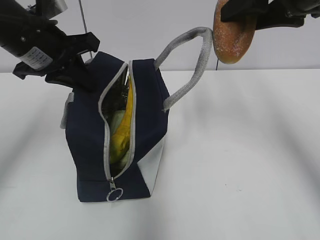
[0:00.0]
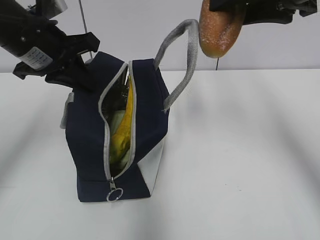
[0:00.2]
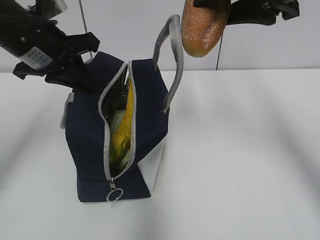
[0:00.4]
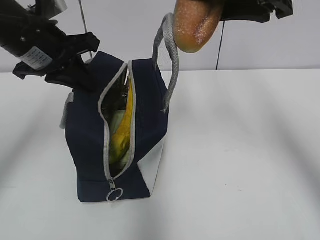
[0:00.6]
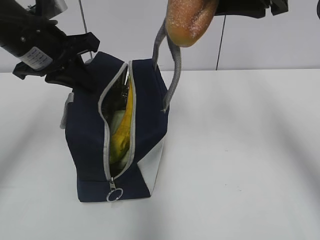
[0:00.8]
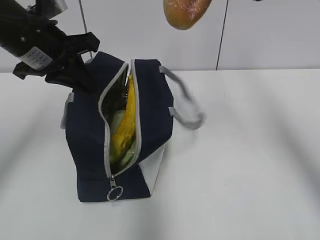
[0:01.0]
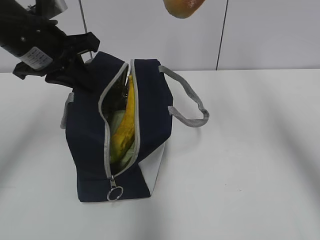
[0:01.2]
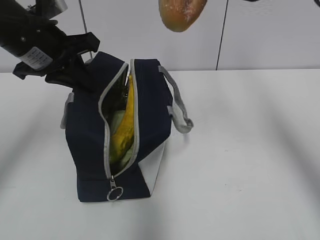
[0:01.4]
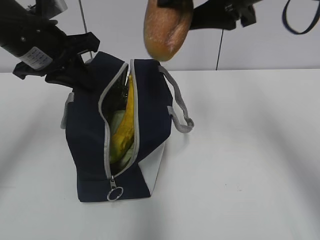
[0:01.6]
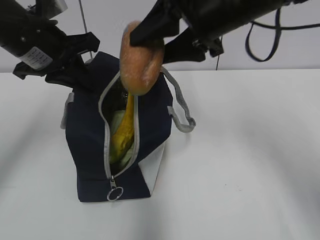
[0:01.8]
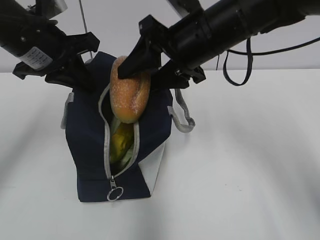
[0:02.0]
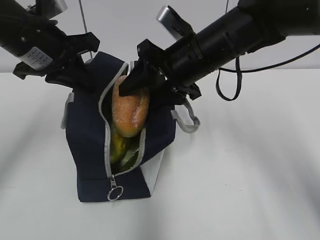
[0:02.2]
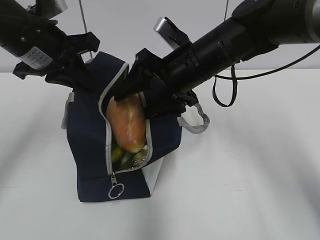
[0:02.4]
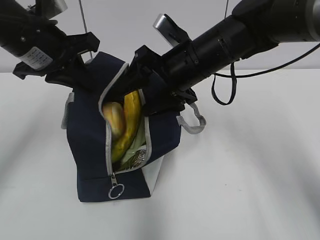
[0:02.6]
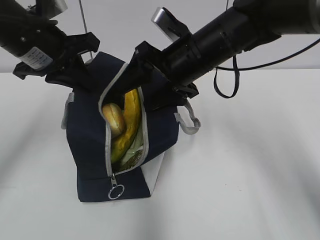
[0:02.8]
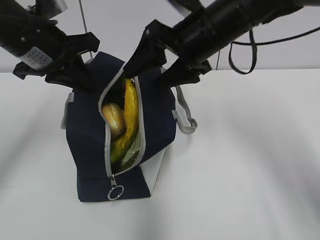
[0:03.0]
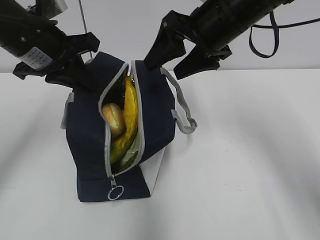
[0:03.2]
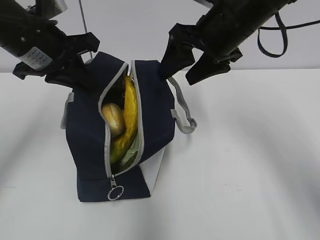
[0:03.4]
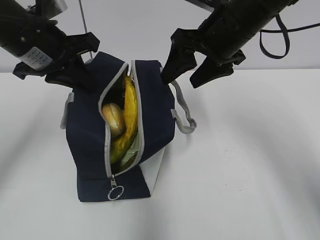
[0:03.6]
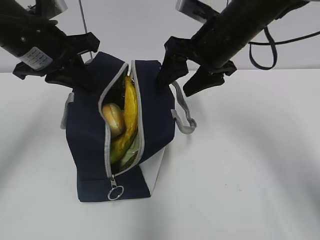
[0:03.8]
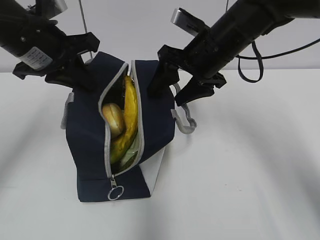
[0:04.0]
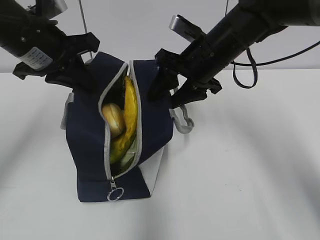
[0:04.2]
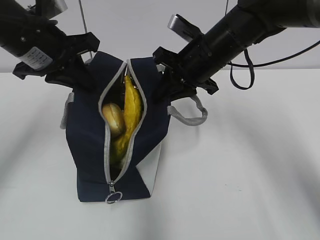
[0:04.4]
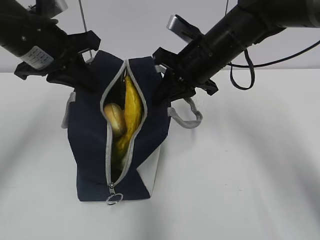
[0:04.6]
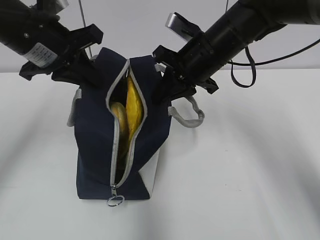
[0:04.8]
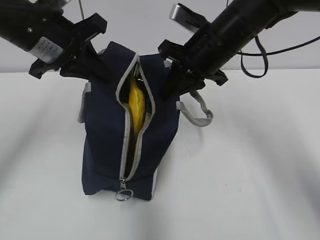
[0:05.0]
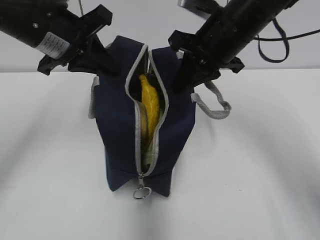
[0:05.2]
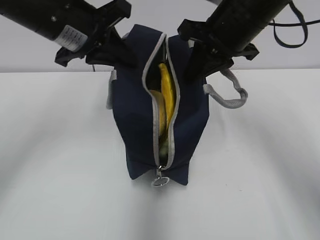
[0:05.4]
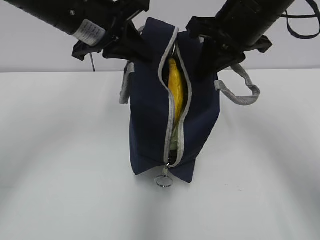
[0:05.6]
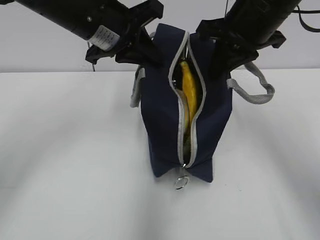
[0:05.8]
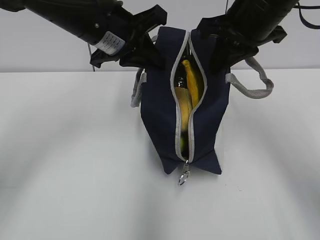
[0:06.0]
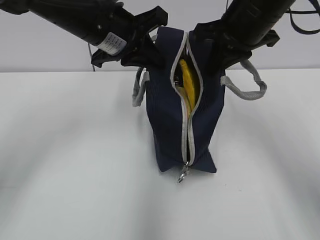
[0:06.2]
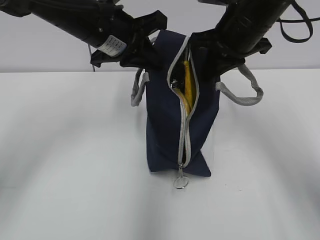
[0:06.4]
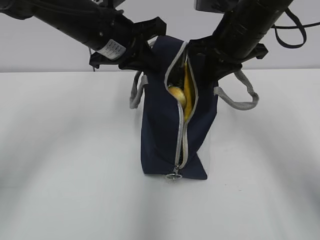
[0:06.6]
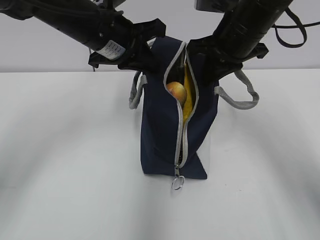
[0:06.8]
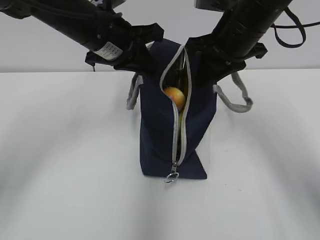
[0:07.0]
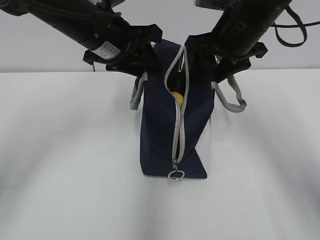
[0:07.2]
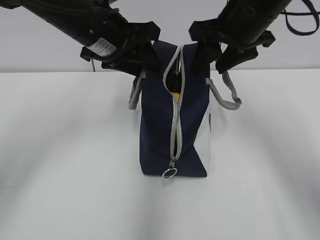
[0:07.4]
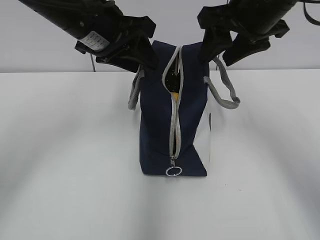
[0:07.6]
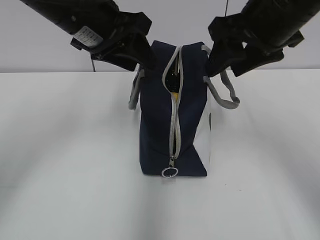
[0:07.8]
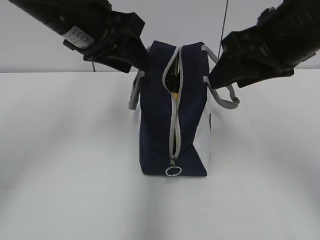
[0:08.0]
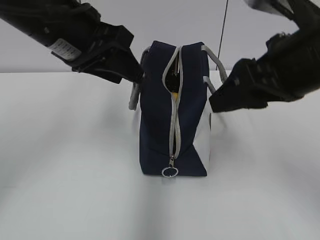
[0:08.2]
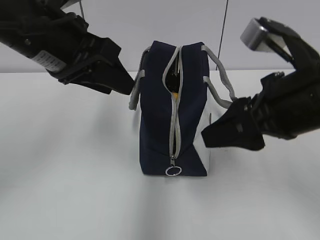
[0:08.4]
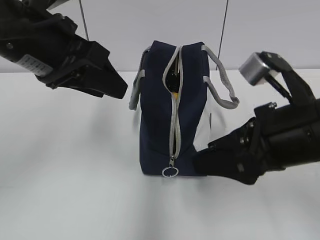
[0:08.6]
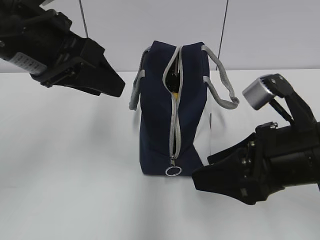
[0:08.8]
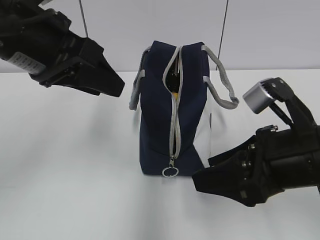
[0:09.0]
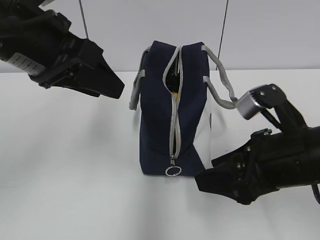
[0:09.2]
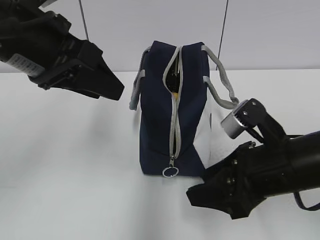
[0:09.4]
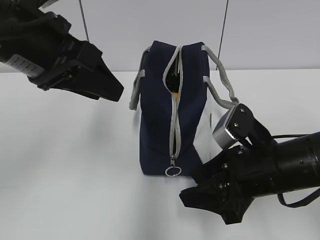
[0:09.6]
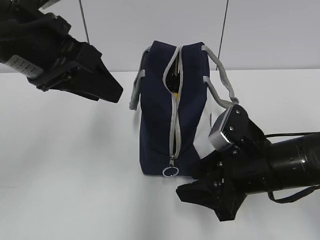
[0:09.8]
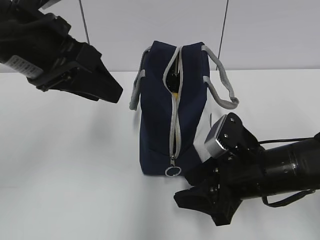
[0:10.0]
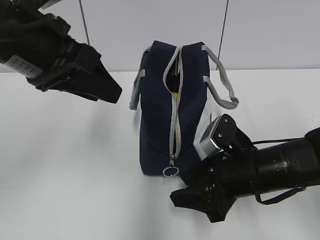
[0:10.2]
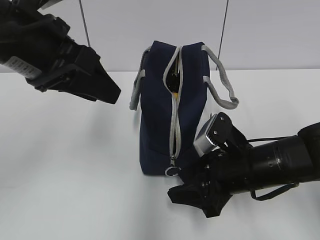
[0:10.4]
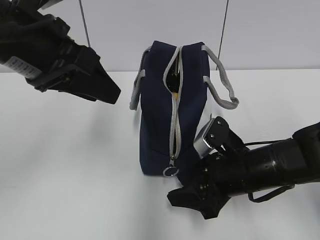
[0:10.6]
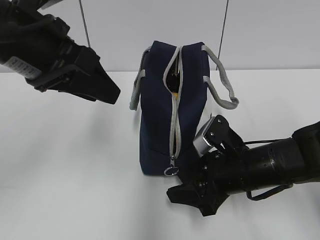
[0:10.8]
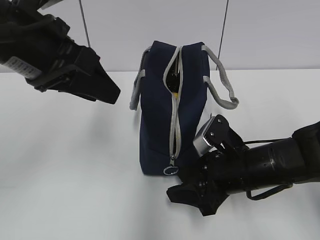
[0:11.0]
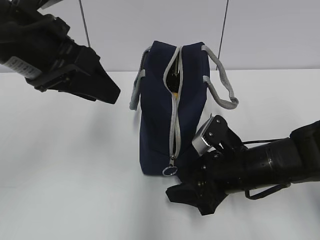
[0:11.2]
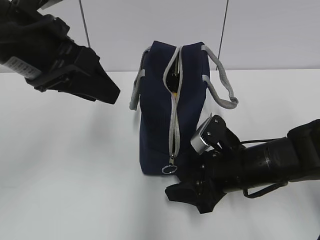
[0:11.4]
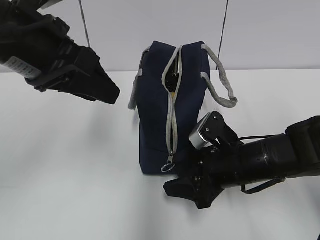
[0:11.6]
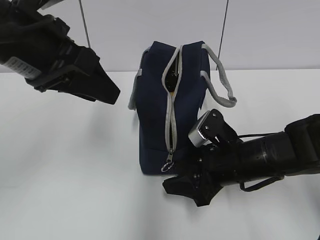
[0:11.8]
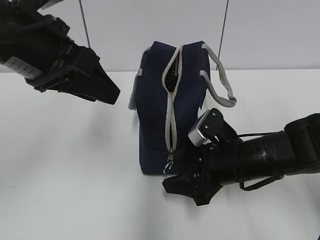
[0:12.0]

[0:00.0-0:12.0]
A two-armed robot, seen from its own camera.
Step, 0:02.8 to 0:04.8: Grab the lunch bag with your right hand.
Step, 0:05.0 to 0:07.4: Move the lunch bag to the right.
0:00.0 to 0:01.6: The right gripper heads to the left, covering approximately 5 cm.
0:01.6 to 0:03.0: The right gripper is displaced downward and to the left by roughly 10 cm.
0:03.0 to 0:04.4: The right gripper ends up roughly 5 cm from where it was, and closes its fingers.
0:04.4 to 0:06.0: The right gripper heads upward and to the right, covering approximately 10 cm, while the left gripper heads to the right, covering about 10 cm.
0:06.0 to 0:07.6: The right gripper opens, while the left gripper opens up.
0:07.6 to 0:09.0: The left gripper moves backward, approximately 10 cm, while the right gripper travels backward and downward by roughly 20 cm.
0:09.0 to 0:10.4: The right gripper shifts about 10 cm downward and forward.
0:10.4 to 0:12.0: The grippers move only a little.

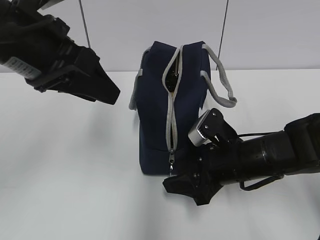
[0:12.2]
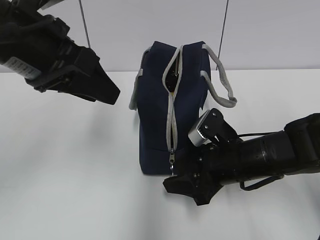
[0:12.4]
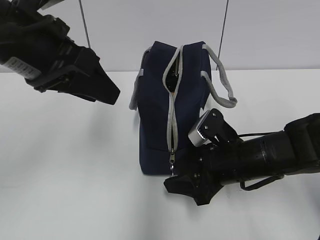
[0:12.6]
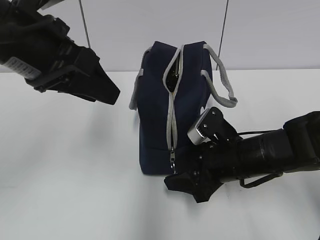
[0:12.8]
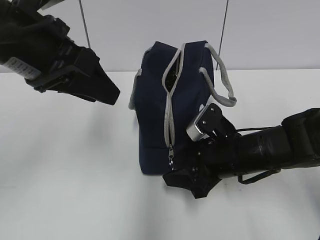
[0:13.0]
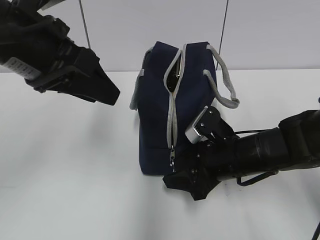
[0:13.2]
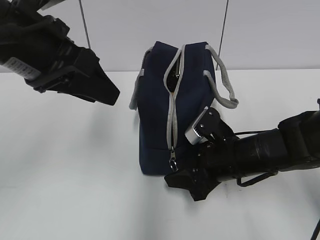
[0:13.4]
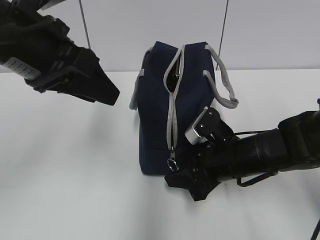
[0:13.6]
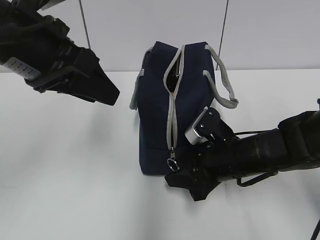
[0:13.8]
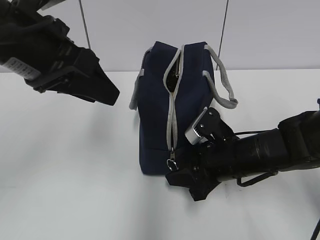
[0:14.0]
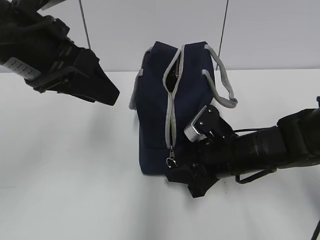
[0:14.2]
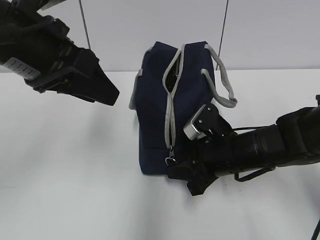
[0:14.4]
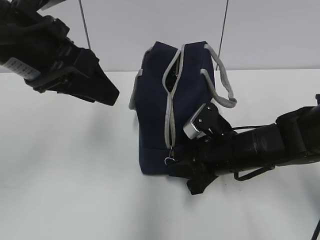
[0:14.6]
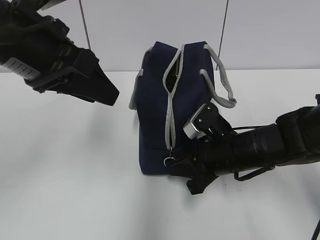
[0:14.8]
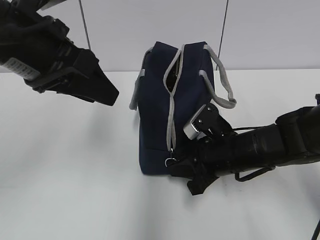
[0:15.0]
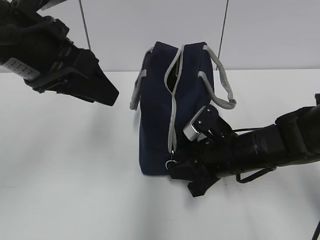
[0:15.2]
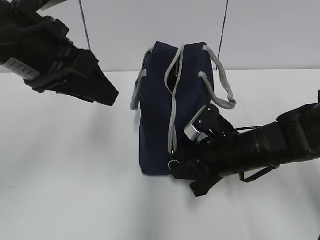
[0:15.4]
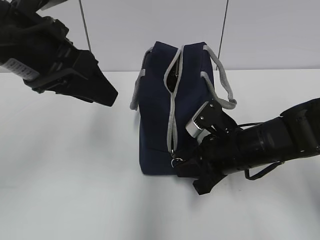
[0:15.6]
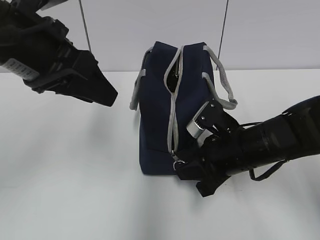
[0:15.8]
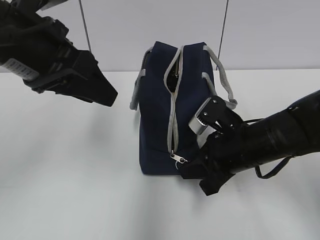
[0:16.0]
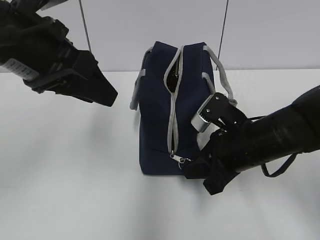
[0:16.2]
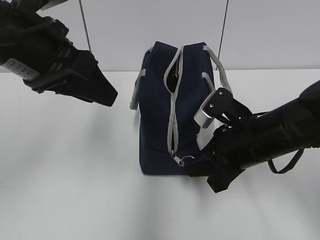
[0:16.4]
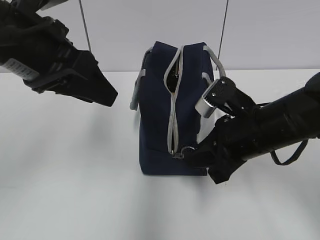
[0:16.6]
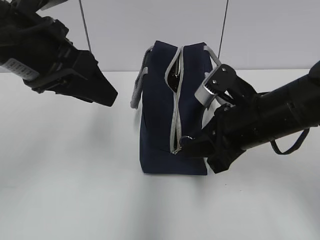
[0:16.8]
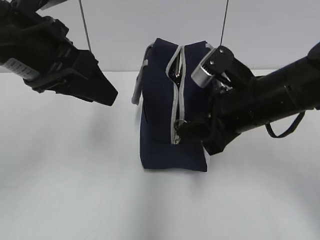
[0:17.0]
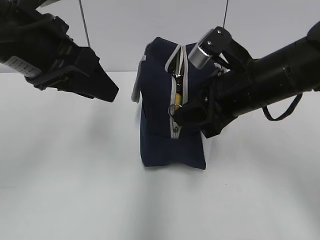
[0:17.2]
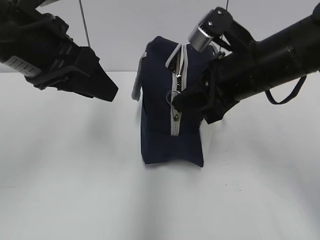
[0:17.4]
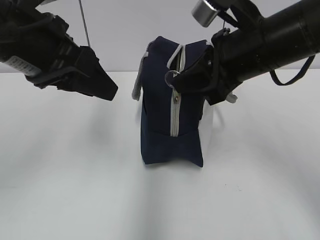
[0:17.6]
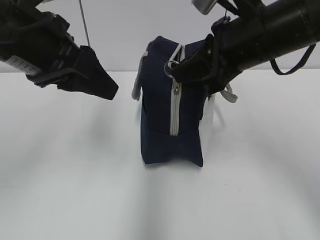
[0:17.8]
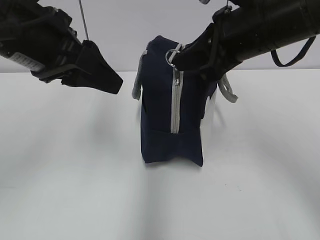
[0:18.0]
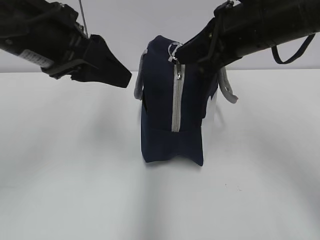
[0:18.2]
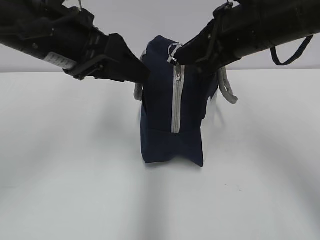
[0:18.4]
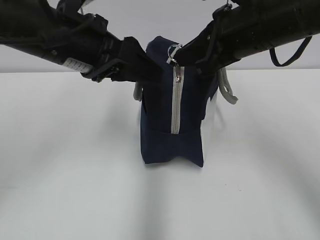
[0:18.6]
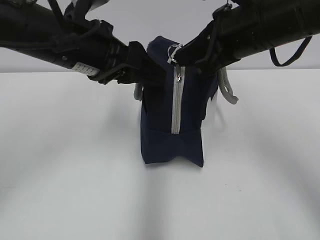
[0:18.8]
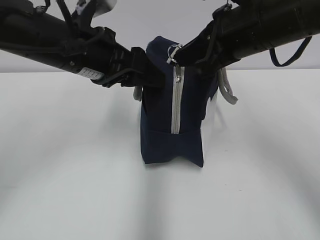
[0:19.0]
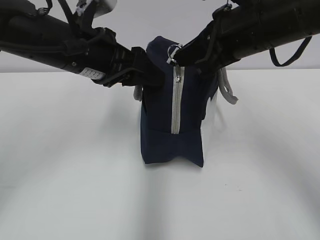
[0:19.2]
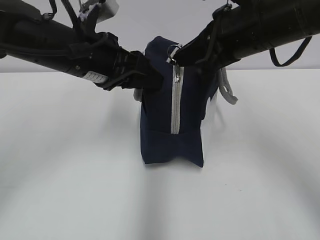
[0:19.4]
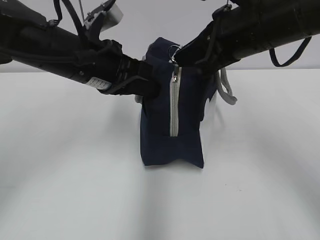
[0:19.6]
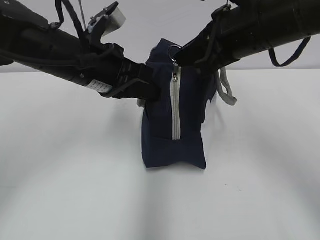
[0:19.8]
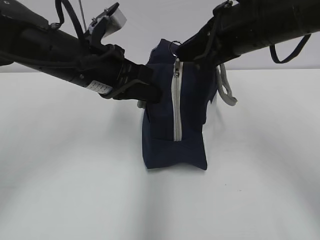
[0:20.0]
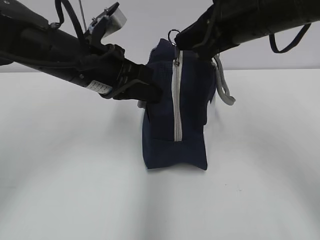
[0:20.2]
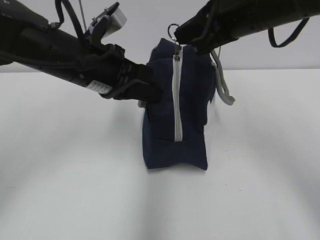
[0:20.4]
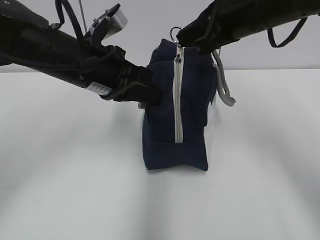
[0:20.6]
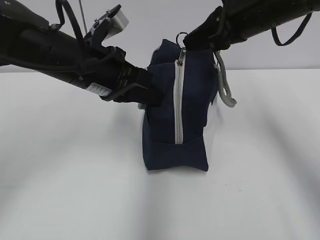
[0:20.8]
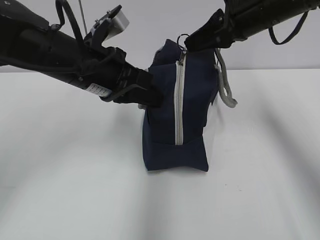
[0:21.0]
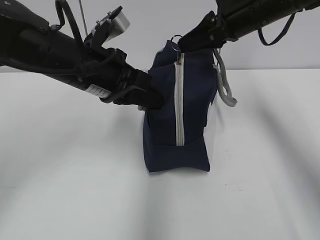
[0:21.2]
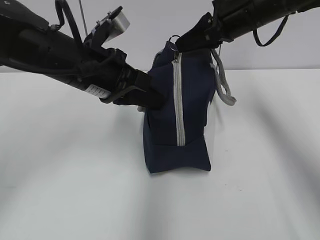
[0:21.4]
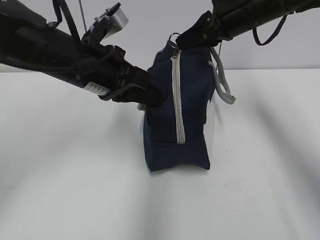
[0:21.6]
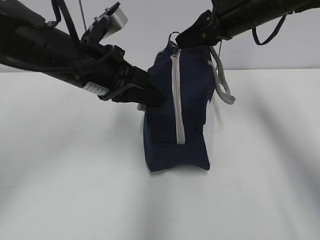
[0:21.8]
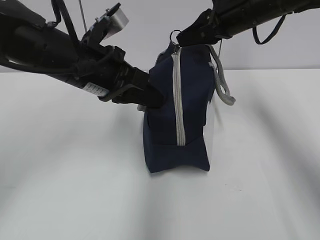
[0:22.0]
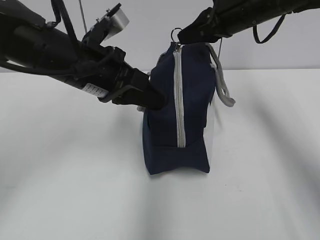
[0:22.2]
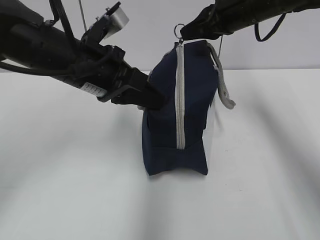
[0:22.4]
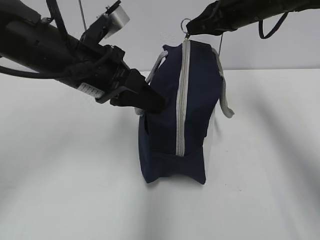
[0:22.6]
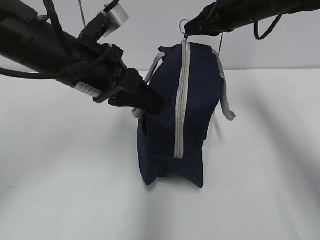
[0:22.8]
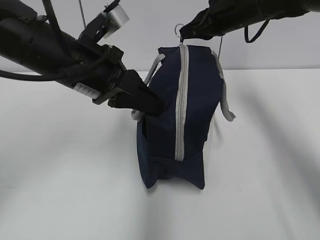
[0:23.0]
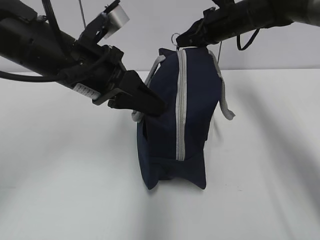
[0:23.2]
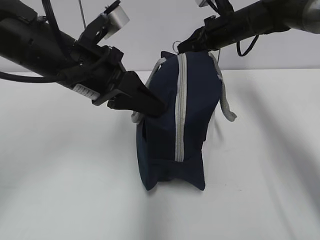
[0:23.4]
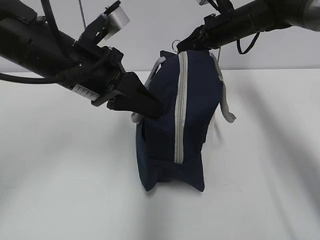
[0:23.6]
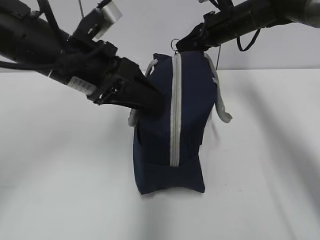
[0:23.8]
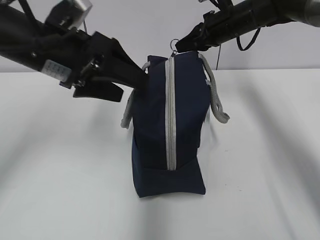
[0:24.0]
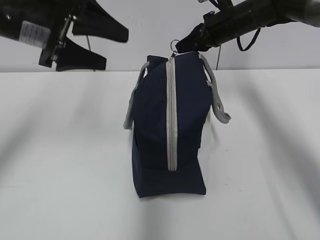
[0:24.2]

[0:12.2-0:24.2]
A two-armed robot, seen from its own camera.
Step, 0:12.2 to 0:23.6: Grab the lunch bag with your left hand.
0:12.2 to 0:13.8: The two grippers keep their place.
0:13.8 to 0:15.2: The right gripper closes its fingers.
0:15.2 to 0:16.6: The right gripper is displaced upward by roughly 5 cm.
0:16.6 to 0:18.2: The right gripper travels upward by approximately 15 cm.
0:18.2 to 0:19.8: The left gripper heads downward and forward, covering roughly 10 cm, and closes up.
0:19.8 to 0:21.2: The right gripper heads forward, covering some 10 cm.
0:21.2 to 0:22.6: The grippers move only a little.
0:22.6 to 0:24.2: The right gripper heads forward and downward, covering roughly 10 cm; the left gripper moves to the left, roughly 5 cm, and opens its fingers.
